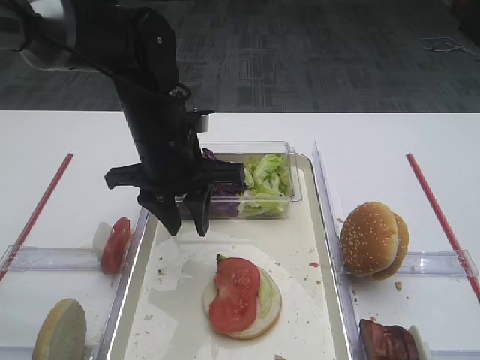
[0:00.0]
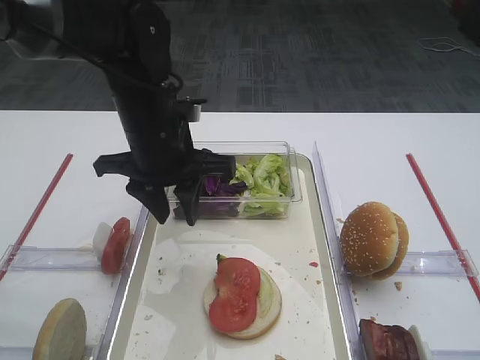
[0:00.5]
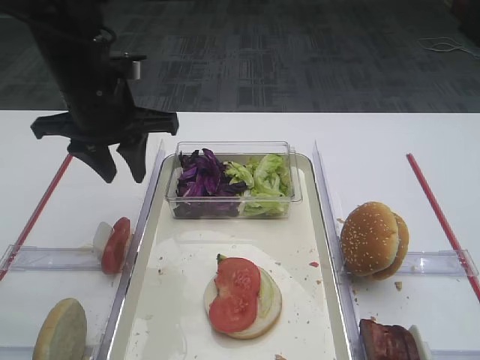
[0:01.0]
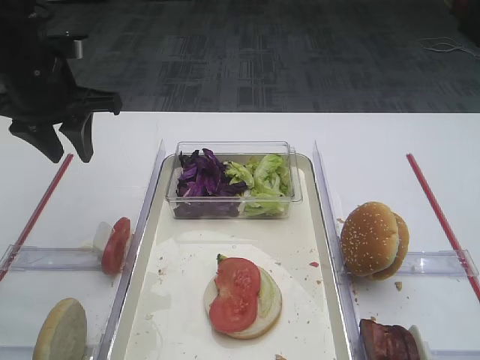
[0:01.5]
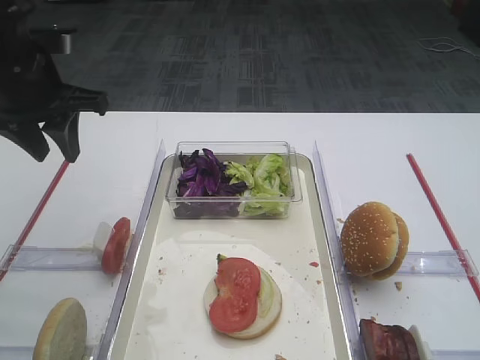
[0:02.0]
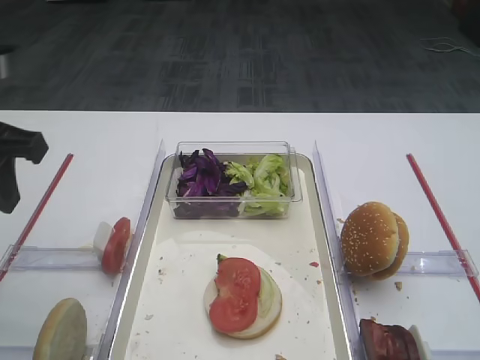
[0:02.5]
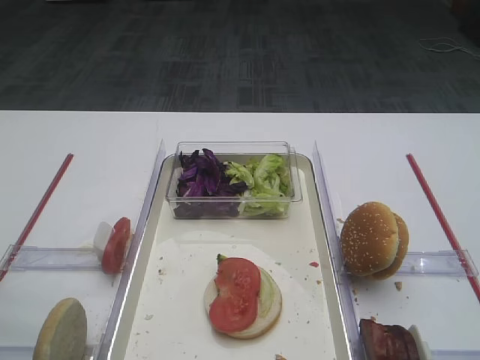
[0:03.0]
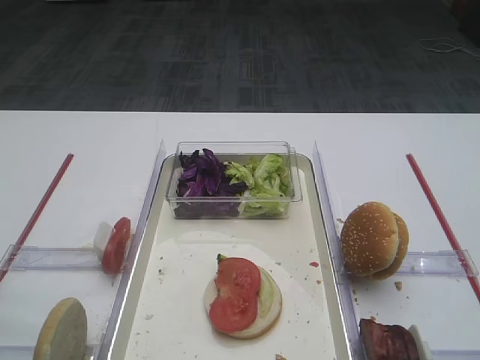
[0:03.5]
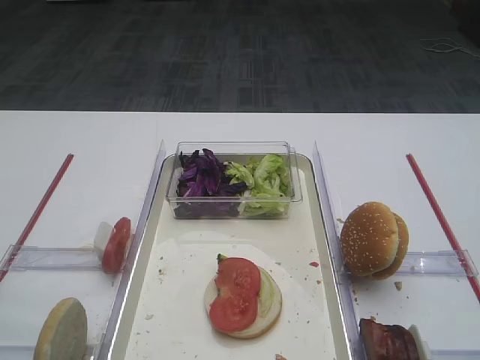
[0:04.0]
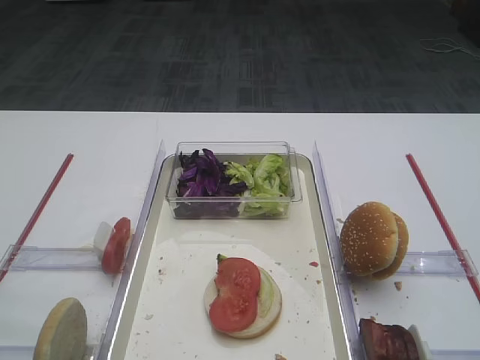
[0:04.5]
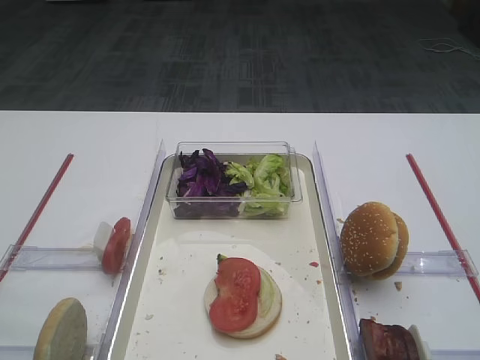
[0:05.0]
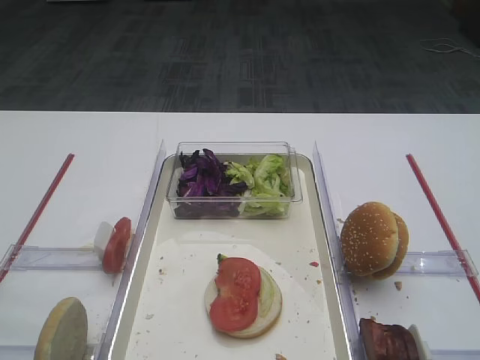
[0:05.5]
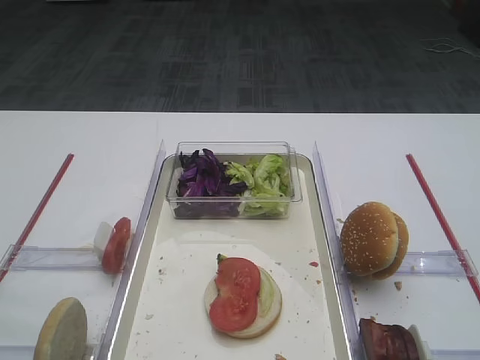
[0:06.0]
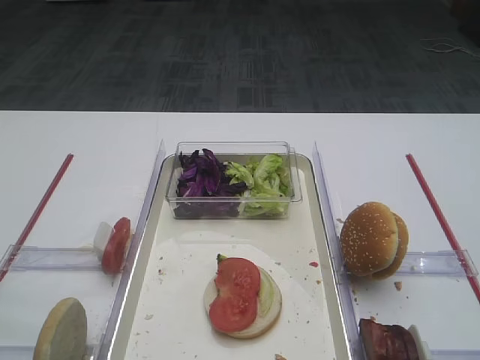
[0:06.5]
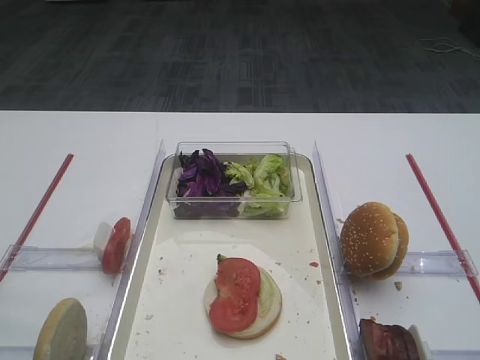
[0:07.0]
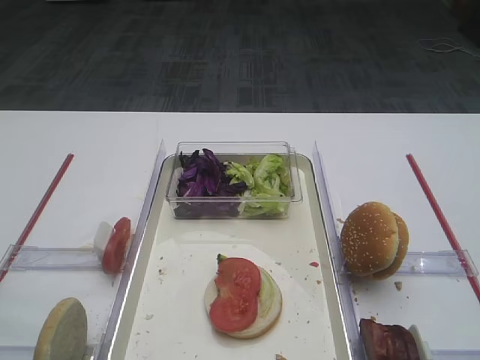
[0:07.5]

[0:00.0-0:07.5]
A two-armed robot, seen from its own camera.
0:00.0 to 0:02.0: The left gripper goes some 15 cm to the left and upward.
0:02.0 to 0:04.0: The left gripper is displaced backward by roughly 35 cm.
0:05.5 to 0:07.5: The two grippers keep their place.

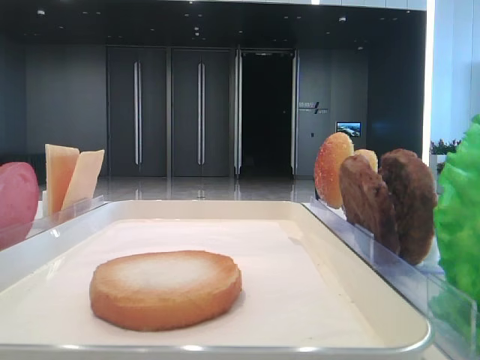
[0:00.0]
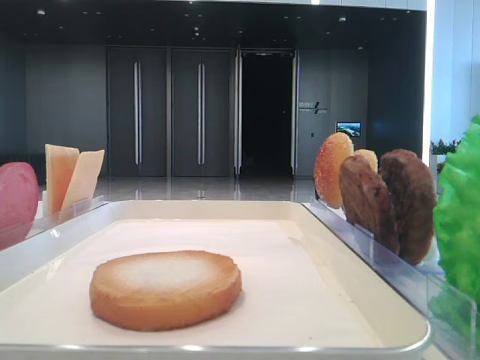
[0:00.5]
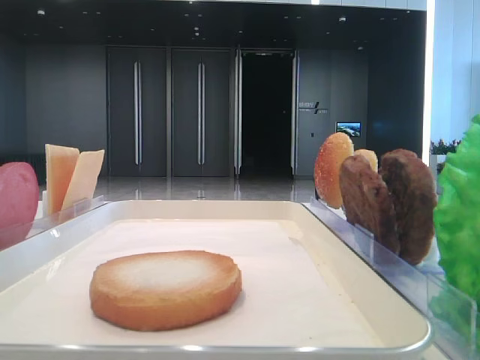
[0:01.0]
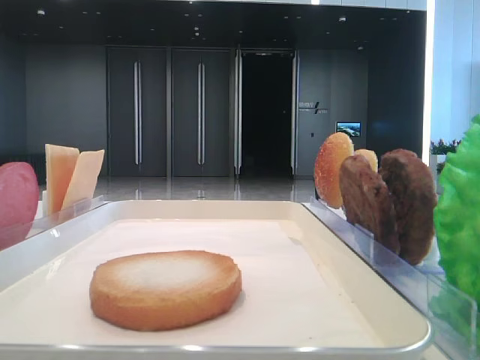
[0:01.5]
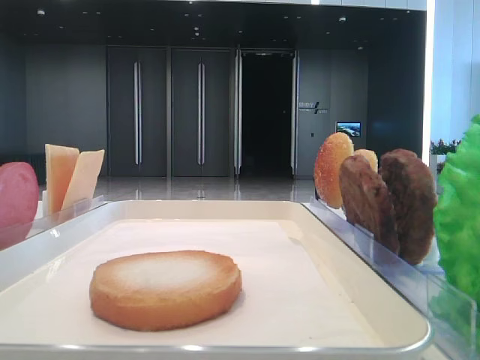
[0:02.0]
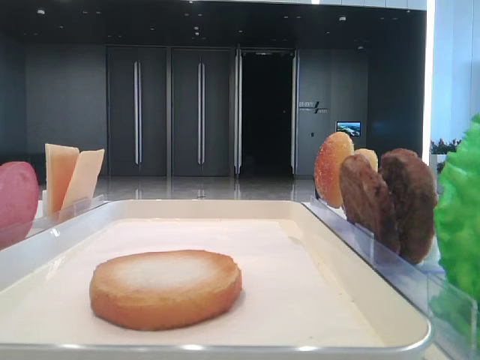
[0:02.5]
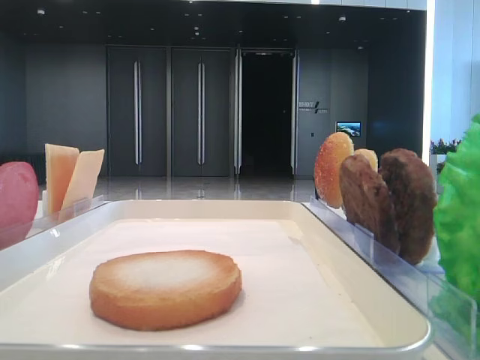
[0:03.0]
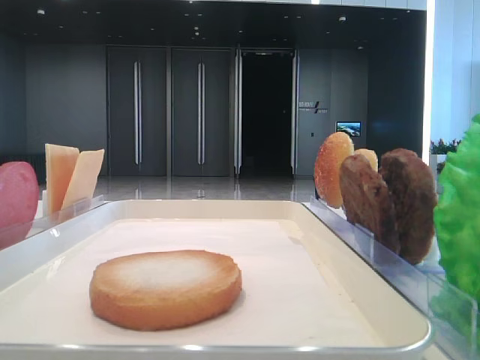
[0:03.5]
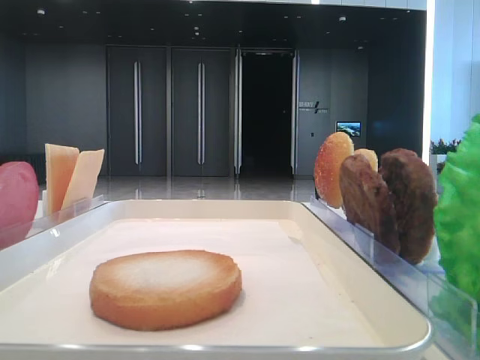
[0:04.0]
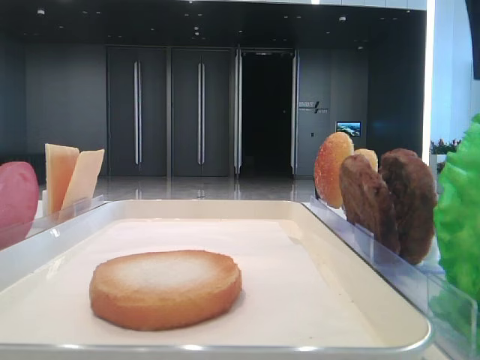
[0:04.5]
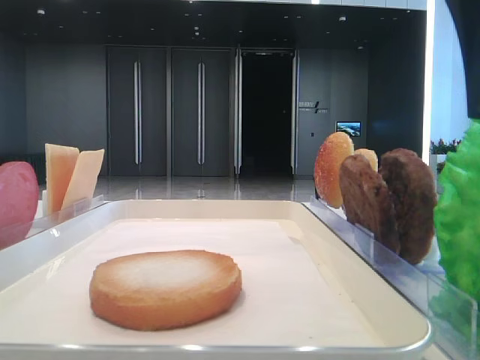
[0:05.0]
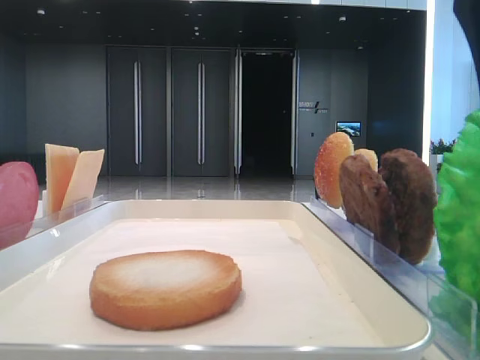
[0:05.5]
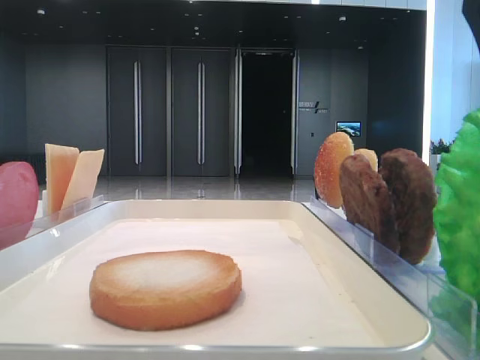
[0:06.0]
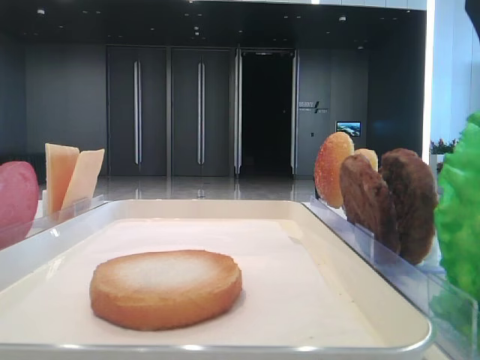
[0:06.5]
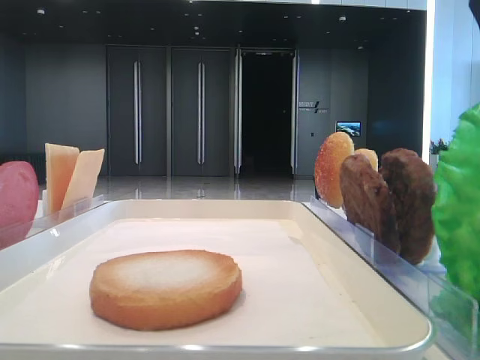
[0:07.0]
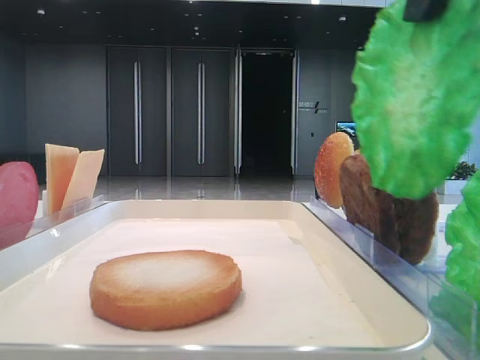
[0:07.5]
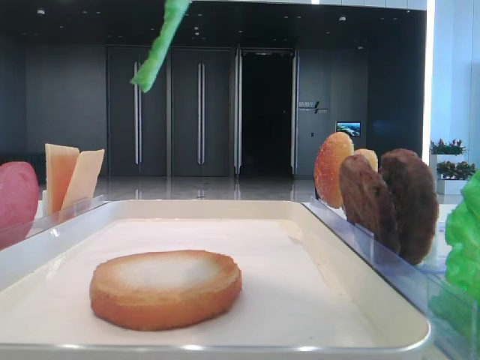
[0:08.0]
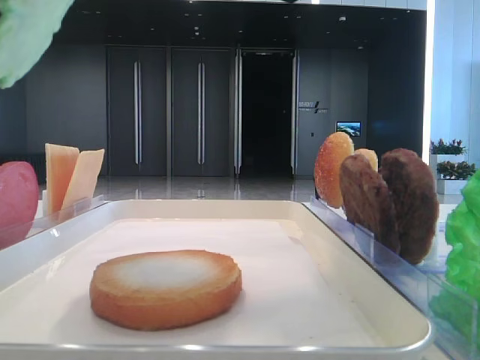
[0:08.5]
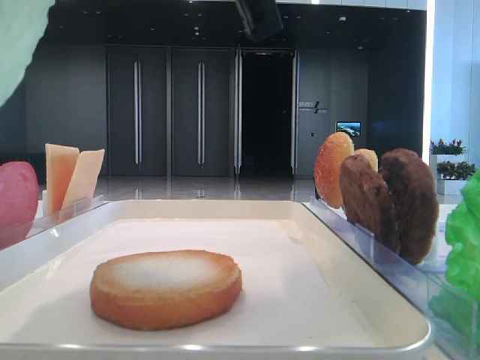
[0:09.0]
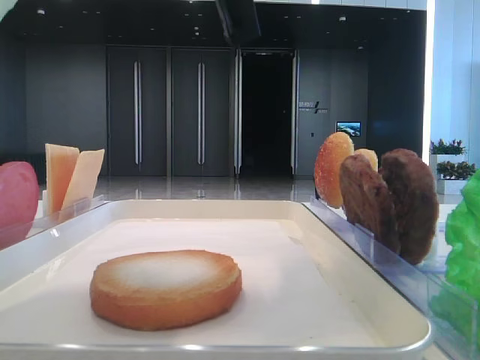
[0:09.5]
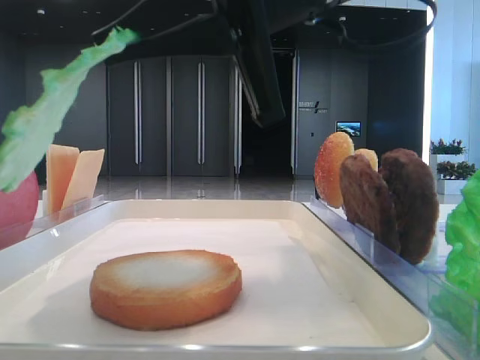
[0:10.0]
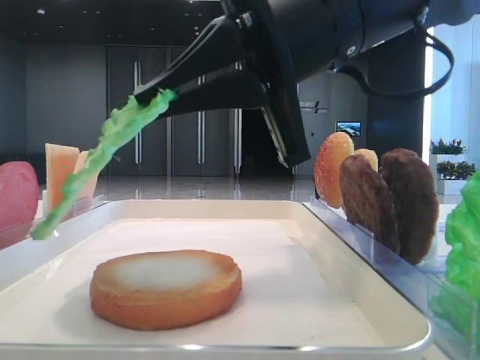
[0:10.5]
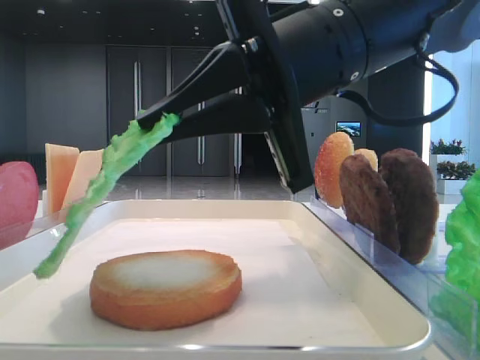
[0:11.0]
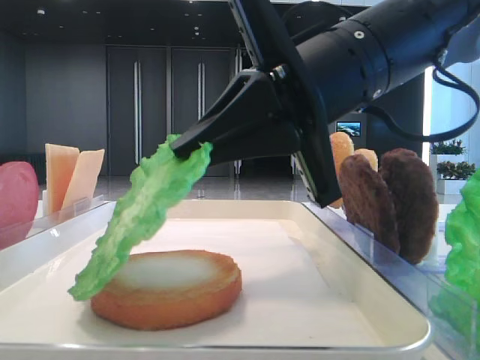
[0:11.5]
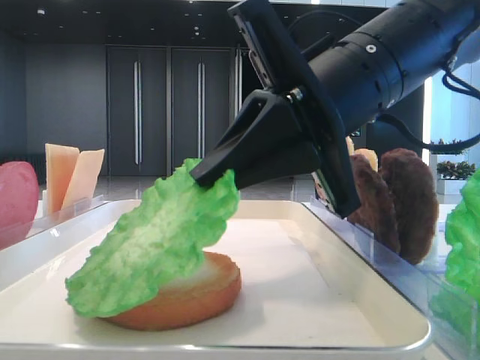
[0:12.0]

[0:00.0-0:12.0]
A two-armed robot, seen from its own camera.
Step, 0:00.0 to 0:06.5: Grab the lettuce leaf with the right hand.
0:04.0 to 0:06.0: The right gripper shifts approximately 5 cm downward, and closes.
0:06.0 to 0:08.0: The right gripper shifts some 10 cm upward and to the left.
0:08.0 to 0:10.0: The right gripper heads downward and forward, covering roughly 10 cm.
0:10.0 to 0:12.0: The right gripper moves downward, about 5 cm.

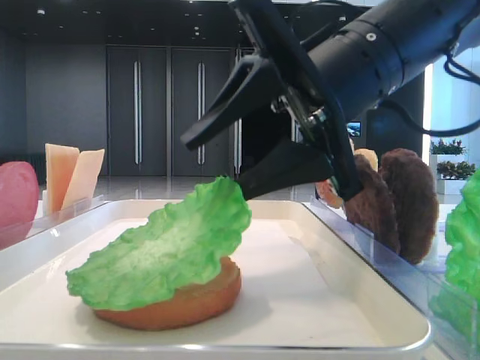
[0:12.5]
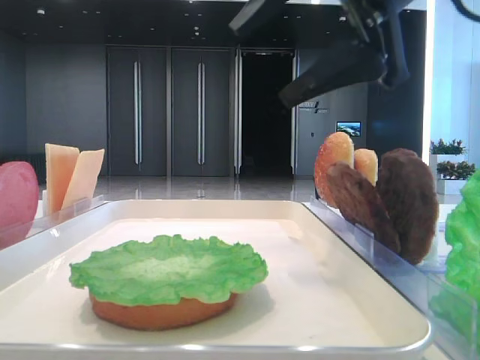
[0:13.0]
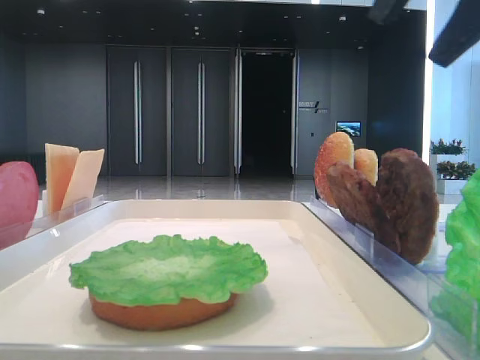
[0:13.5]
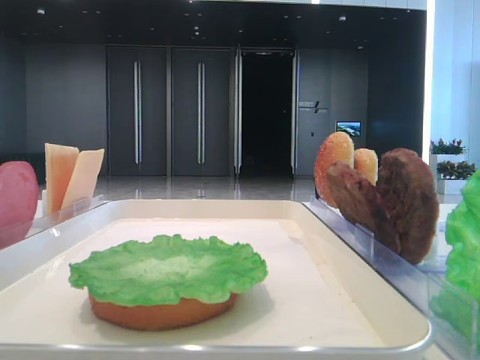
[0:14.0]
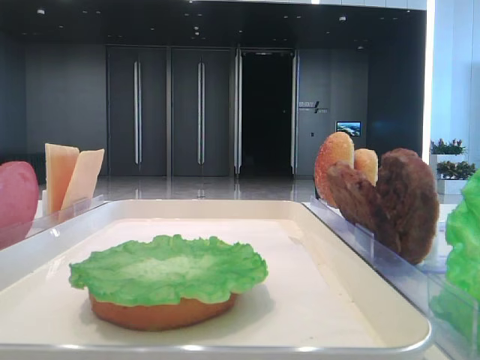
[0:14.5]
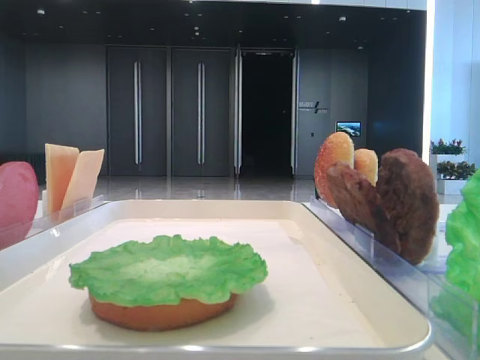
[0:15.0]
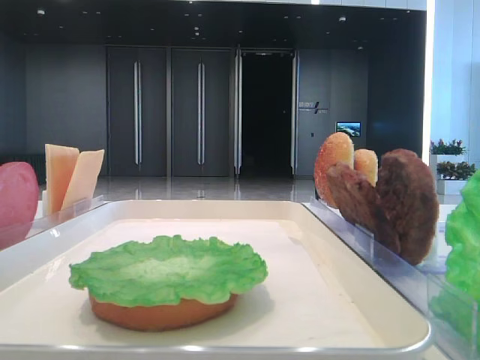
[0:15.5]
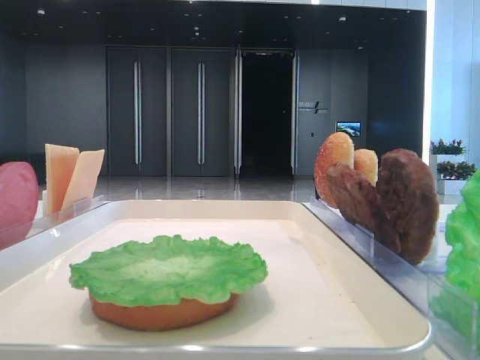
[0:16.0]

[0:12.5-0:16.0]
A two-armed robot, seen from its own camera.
0:12.5 to 0:14.5: The right gripper travels to the right, backward and upward by some 25 cm.

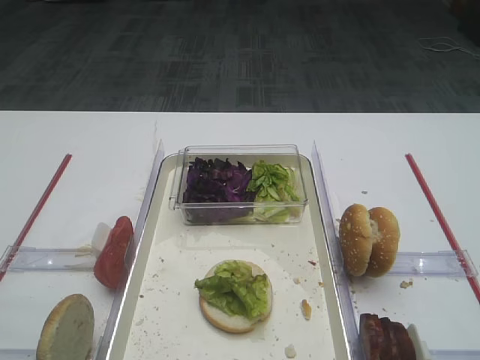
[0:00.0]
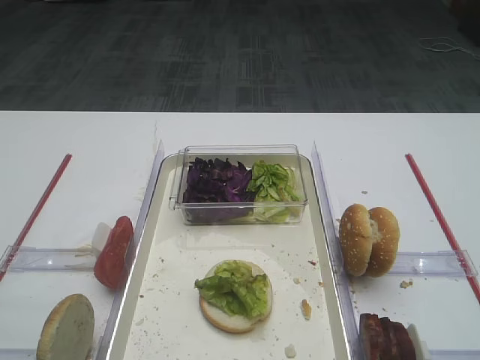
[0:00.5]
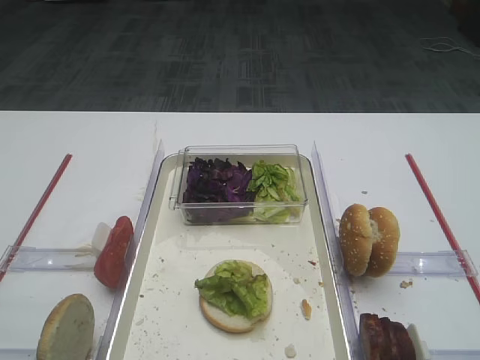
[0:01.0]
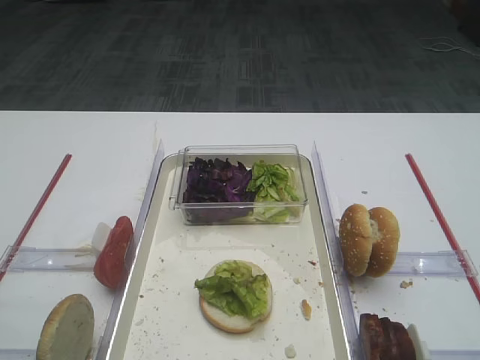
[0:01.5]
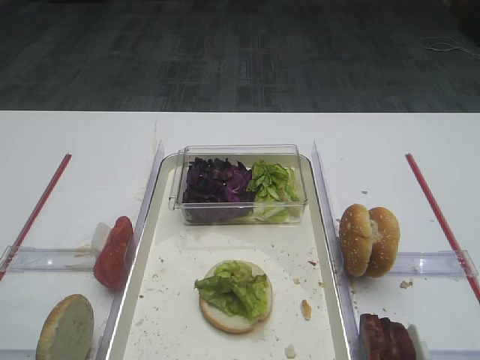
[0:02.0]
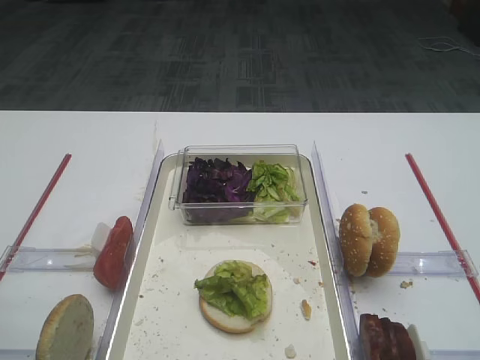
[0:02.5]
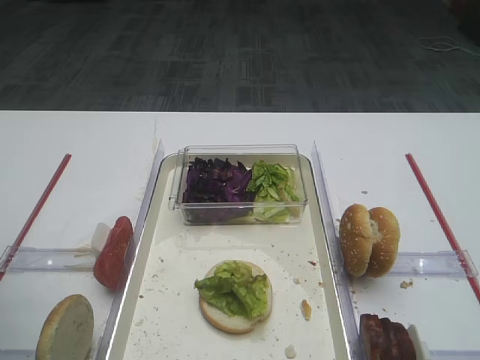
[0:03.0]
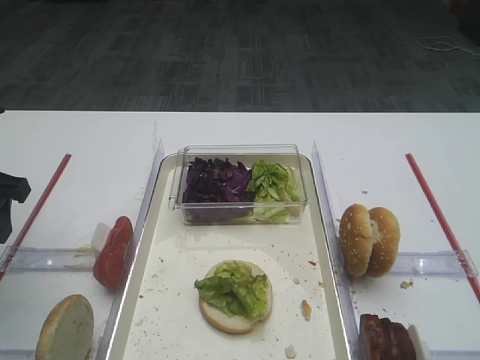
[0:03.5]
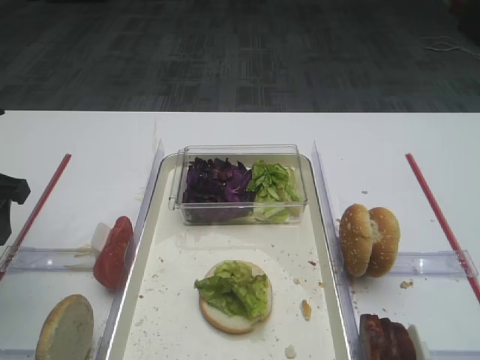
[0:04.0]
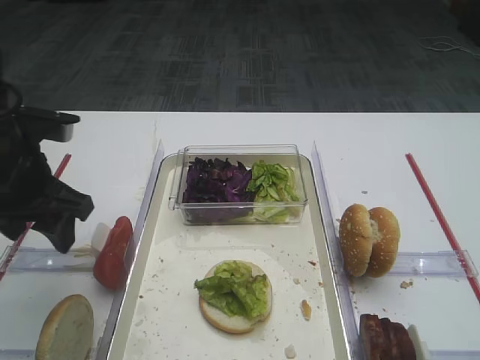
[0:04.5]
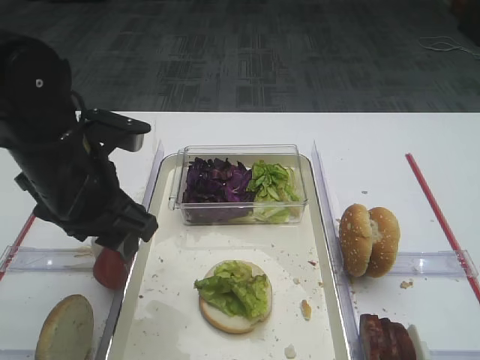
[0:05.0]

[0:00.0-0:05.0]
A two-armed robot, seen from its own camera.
0:02.5 to 0:05.0: The left gripper shifts roughly 20 cm to the right and forward.
